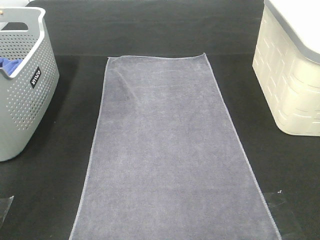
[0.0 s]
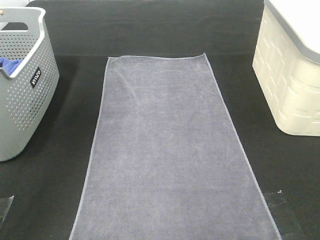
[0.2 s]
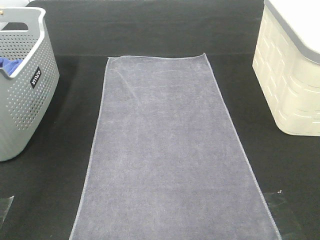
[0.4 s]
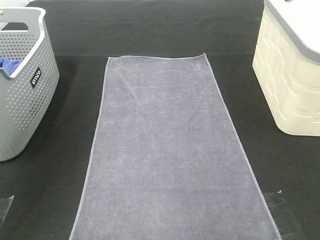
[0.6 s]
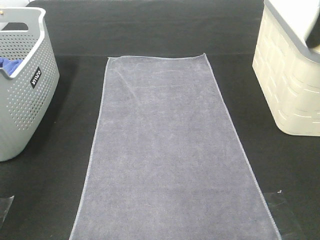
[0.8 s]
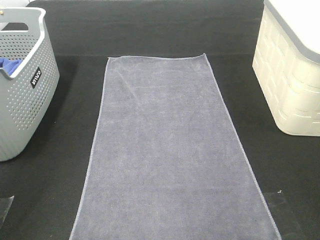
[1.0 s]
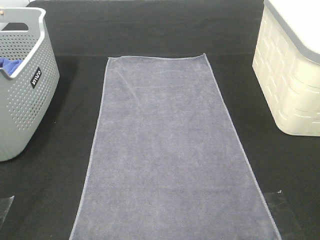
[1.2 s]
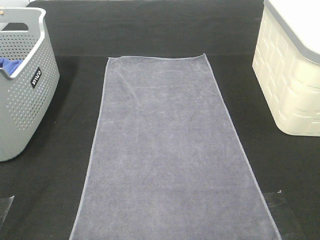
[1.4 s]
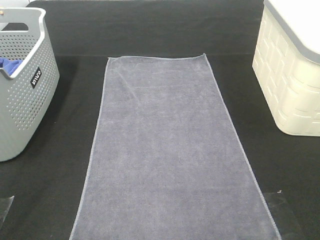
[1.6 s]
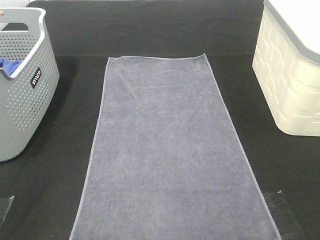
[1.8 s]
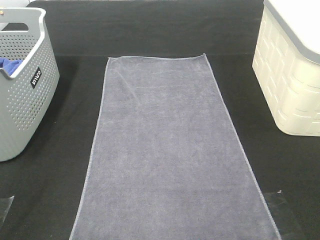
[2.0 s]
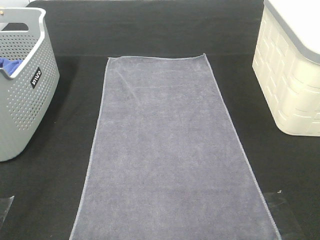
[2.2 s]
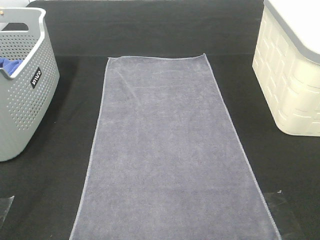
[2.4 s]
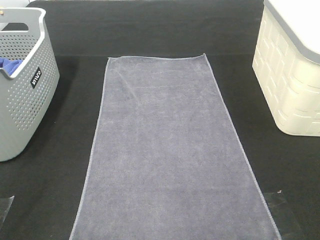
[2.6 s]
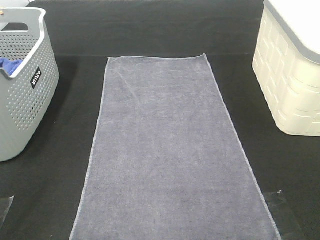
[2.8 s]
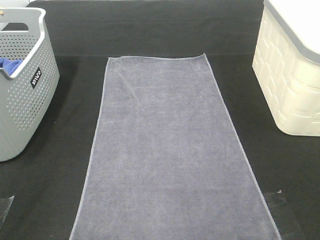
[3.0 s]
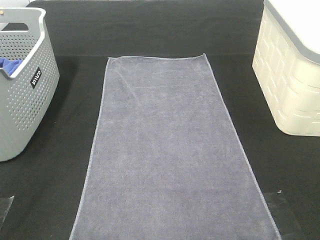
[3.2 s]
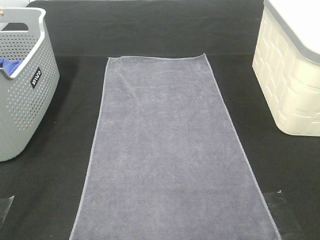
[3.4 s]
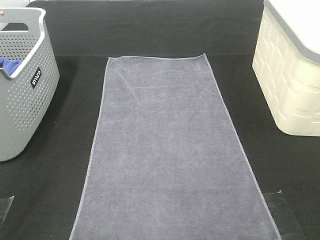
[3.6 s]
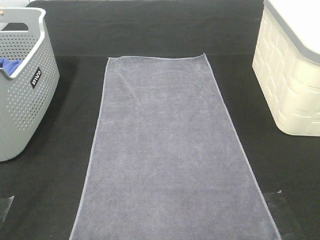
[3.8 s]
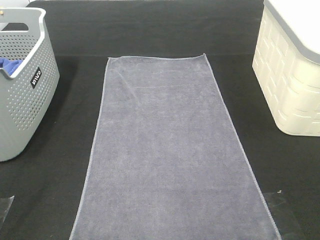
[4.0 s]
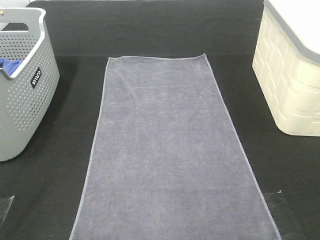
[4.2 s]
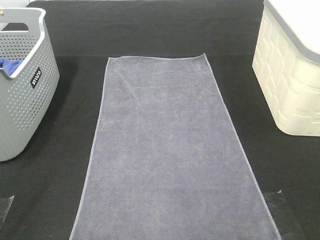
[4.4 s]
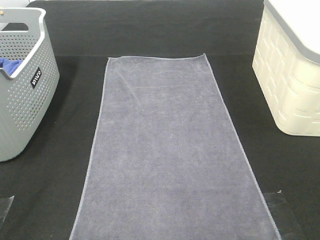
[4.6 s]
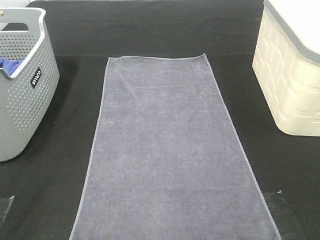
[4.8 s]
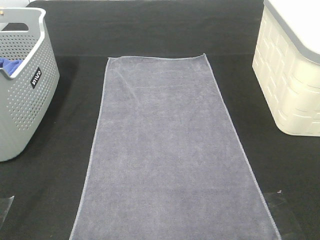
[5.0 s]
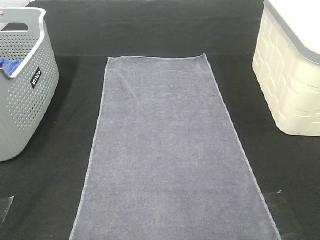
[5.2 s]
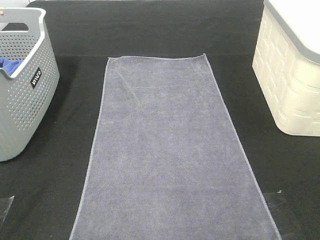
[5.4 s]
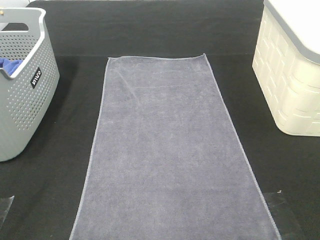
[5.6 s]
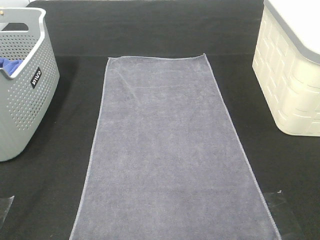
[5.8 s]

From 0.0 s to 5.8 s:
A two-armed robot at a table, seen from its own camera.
Task of the whole recording: Remove the towel and place it.
From 0.0 s to 1.4 s: Both grippers travel together backward, some 35 cm.
From 4.4 s to 5.8 s: Neither gripper changes place.

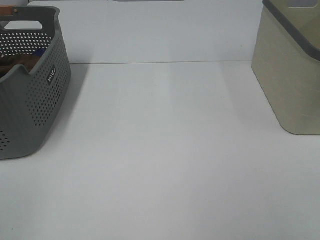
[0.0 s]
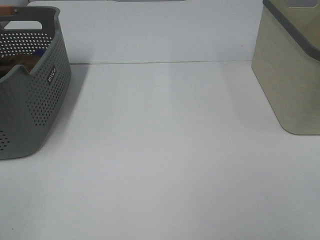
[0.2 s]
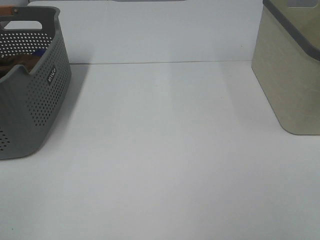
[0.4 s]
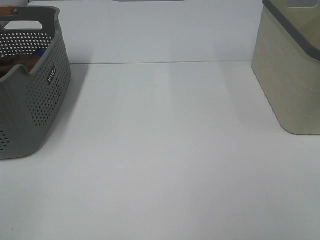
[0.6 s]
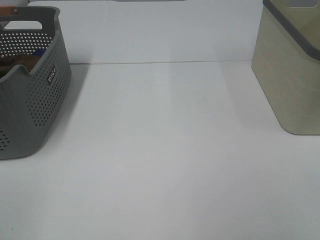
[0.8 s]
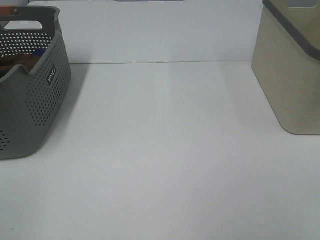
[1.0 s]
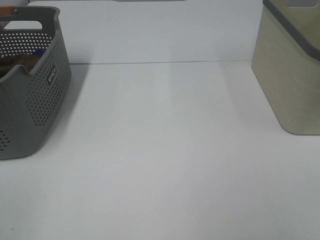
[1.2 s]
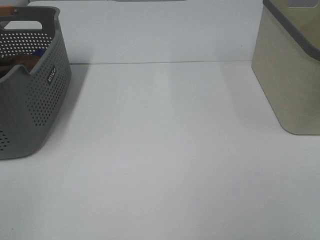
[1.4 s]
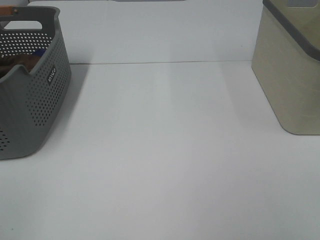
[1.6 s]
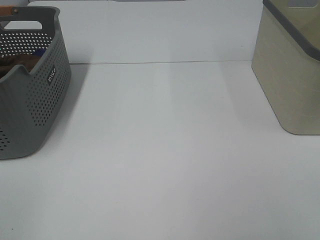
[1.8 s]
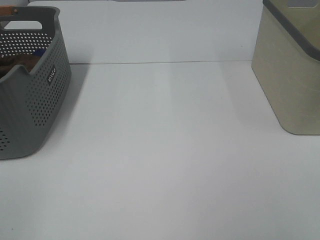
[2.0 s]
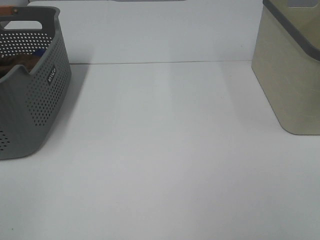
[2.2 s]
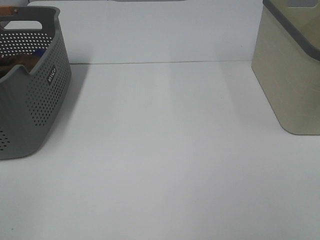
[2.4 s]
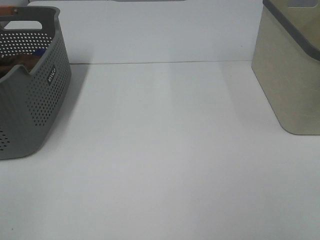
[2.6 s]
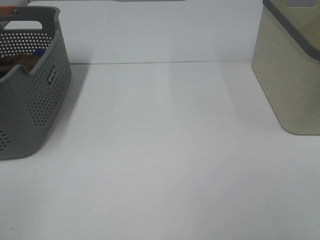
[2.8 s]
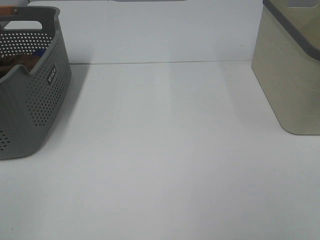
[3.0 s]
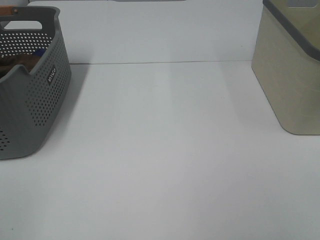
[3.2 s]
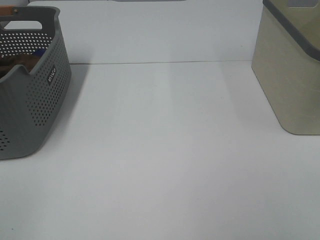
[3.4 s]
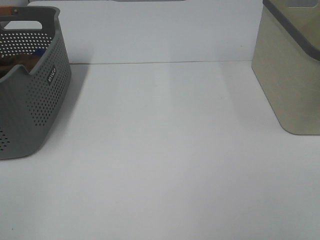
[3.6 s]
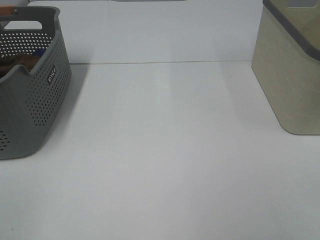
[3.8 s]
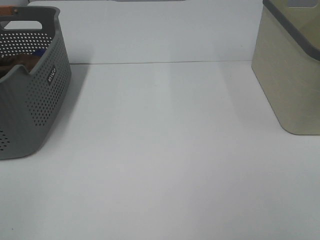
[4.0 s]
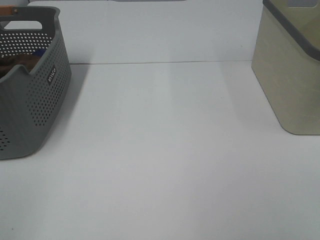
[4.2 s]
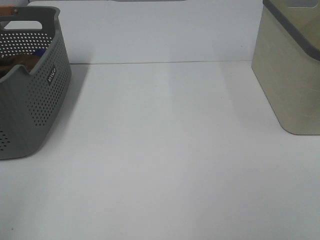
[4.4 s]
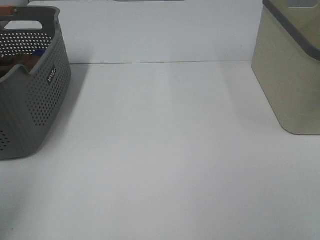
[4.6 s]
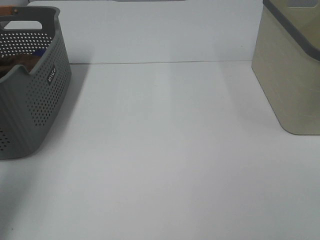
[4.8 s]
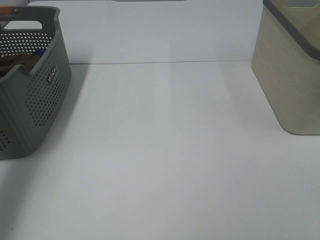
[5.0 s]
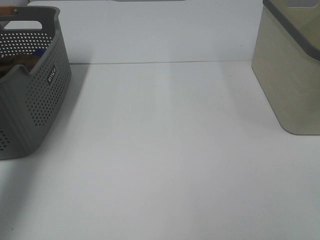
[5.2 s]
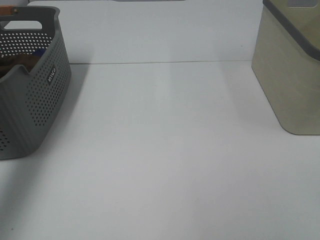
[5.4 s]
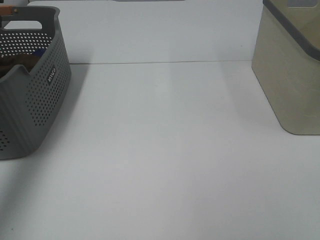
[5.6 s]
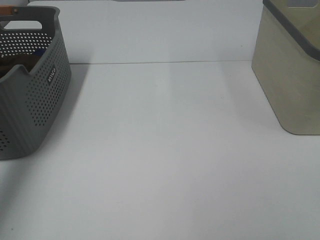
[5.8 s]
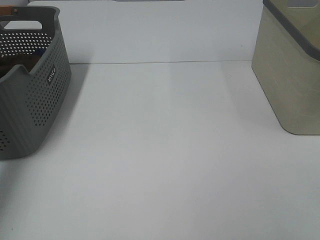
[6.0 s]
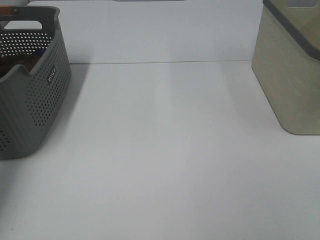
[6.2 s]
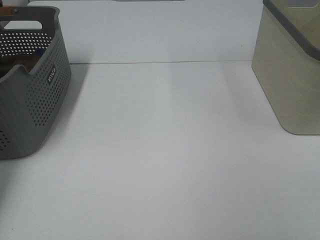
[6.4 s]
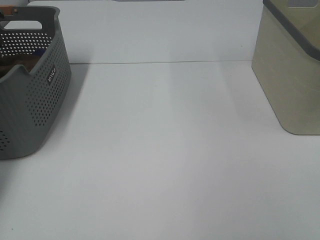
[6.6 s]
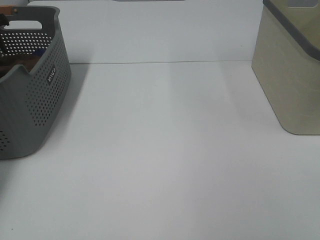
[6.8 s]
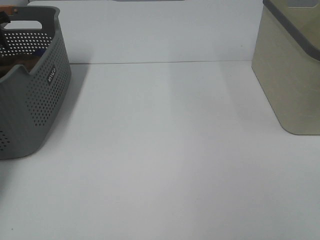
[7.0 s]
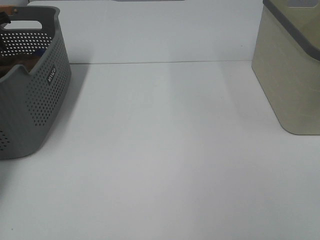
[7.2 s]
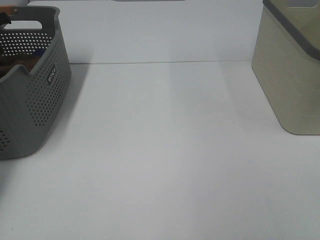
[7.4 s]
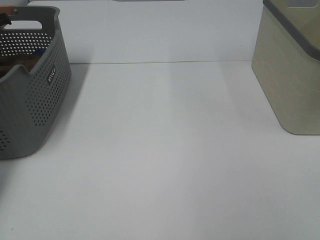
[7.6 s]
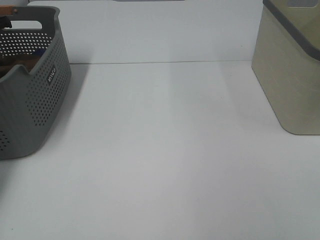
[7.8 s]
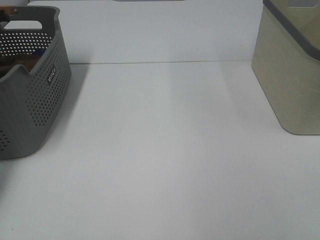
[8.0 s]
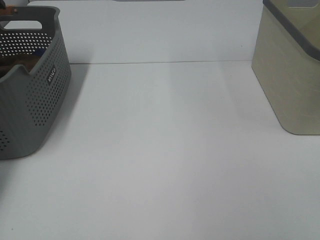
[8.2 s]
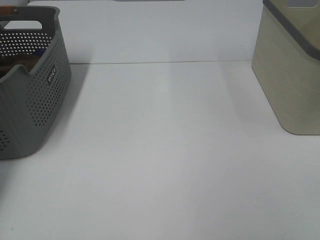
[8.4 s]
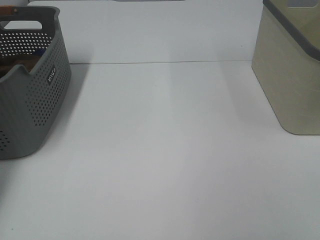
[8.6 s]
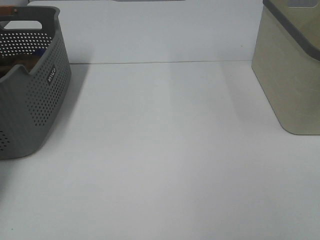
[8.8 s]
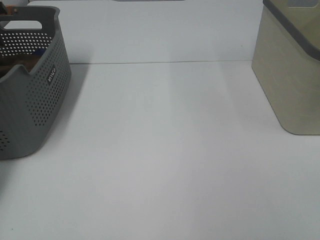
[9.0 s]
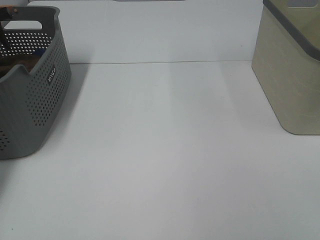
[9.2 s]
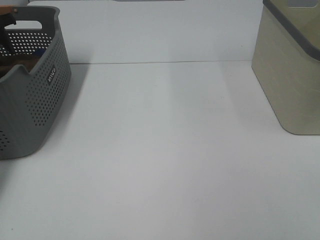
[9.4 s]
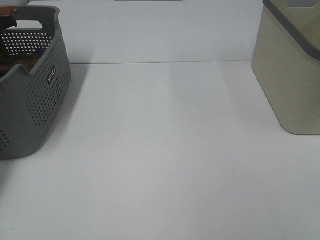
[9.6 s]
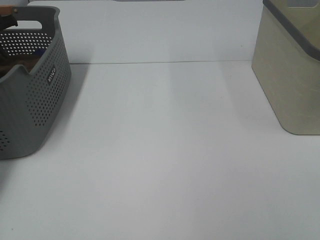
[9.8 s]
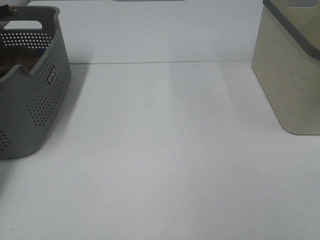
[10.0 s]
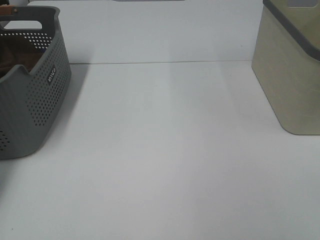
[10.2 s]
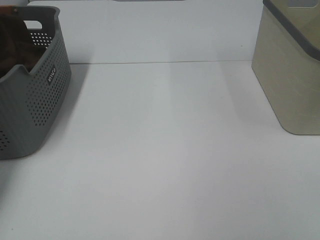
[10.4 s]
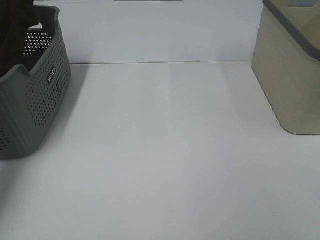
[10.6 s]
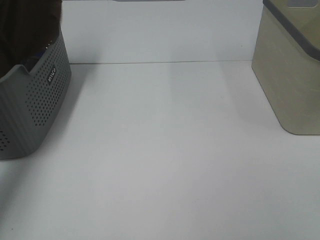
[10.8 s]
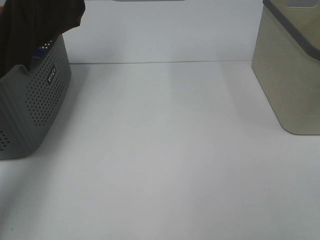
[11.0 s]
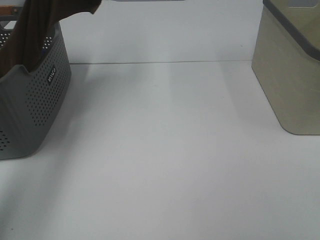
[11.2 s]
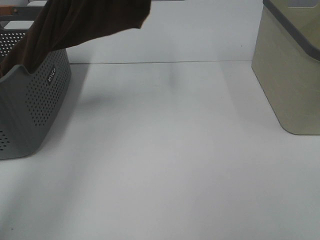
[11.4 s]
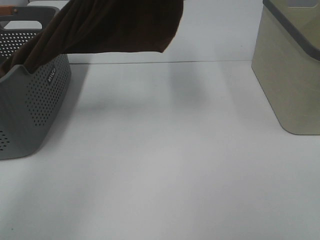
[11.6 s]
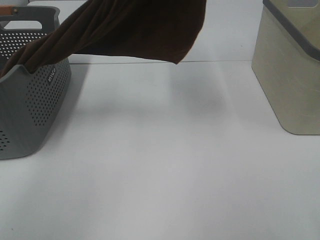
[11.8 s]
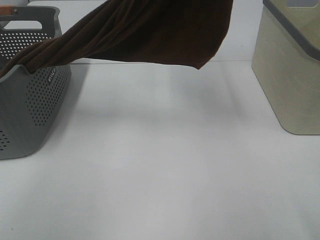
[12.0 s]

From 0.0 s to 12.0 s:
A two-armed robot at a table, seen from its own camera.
Task of the whole recording: Remove the towel and place it.
From 0.0 s to 3.0 s: Both grippers stay about where they are.
From 4.4 s to 6.0 s: The left gripper travels forward by approximately 40 cm.
From 6.0 s to 7.6 s: The left gripper goes approximately 10 cm downward and forward, and closes up.
From 9.0 s to 10.4 s: The left gripper is displaced upward by roughly 5 cm, and closes up.
From 10.4 s to 12.0 s: The left gripper is displaced to the right, backward and upward by about 40 cm. Meanwhile the right gripper goes about 10 cm forward.

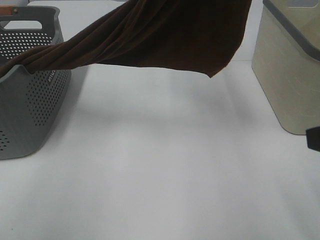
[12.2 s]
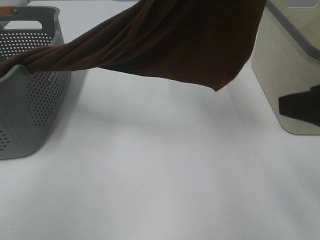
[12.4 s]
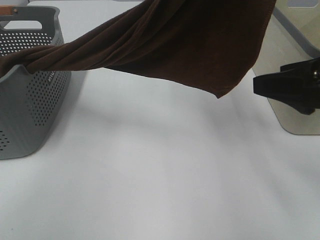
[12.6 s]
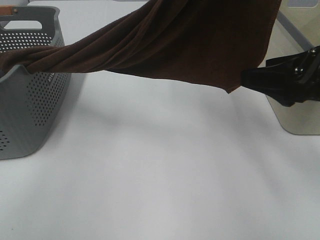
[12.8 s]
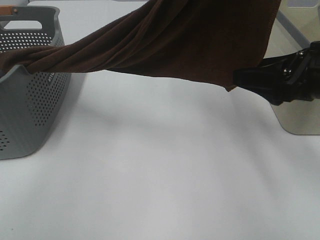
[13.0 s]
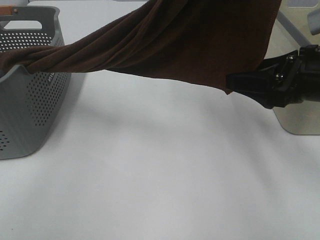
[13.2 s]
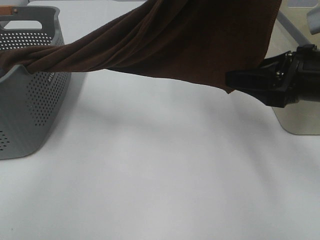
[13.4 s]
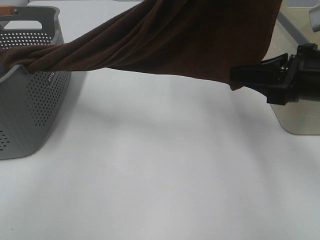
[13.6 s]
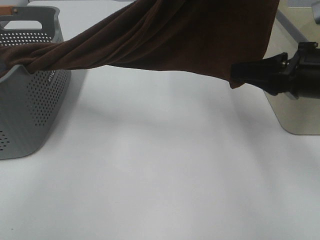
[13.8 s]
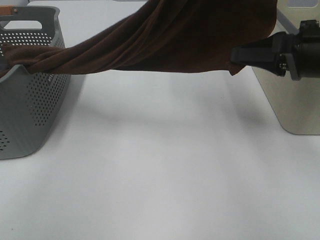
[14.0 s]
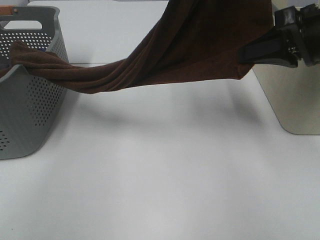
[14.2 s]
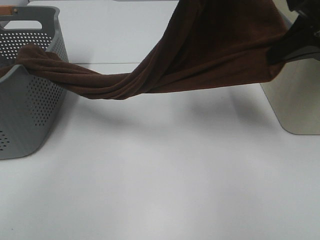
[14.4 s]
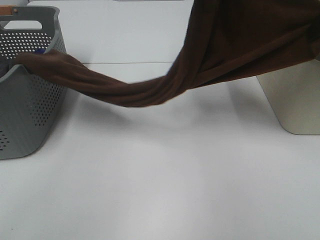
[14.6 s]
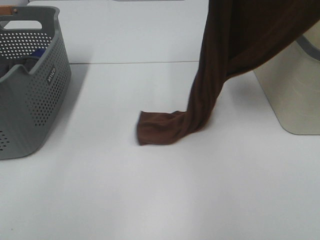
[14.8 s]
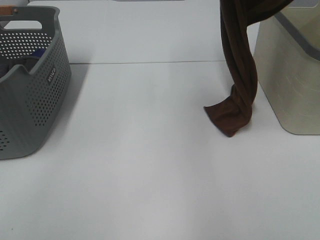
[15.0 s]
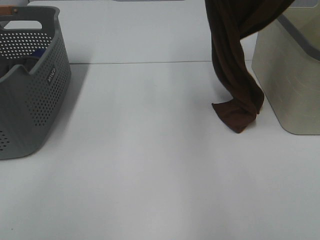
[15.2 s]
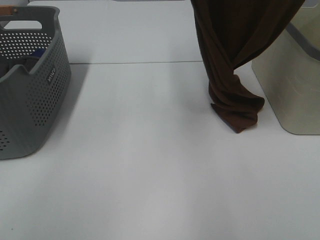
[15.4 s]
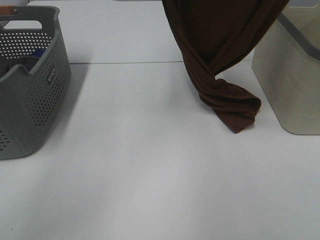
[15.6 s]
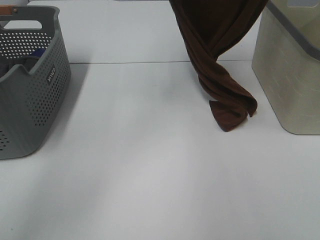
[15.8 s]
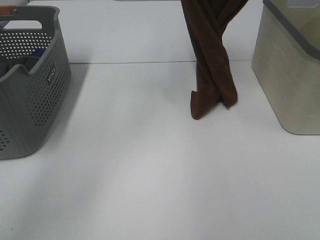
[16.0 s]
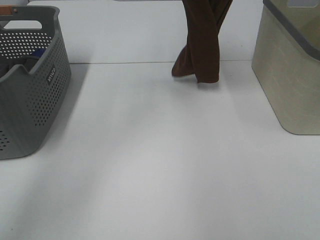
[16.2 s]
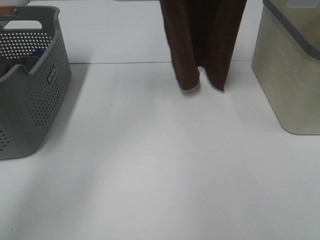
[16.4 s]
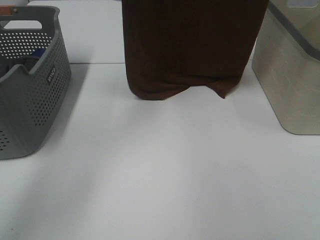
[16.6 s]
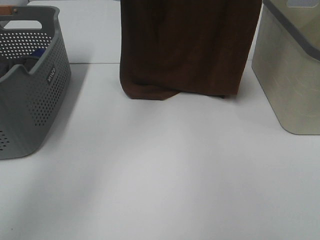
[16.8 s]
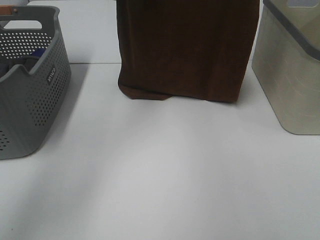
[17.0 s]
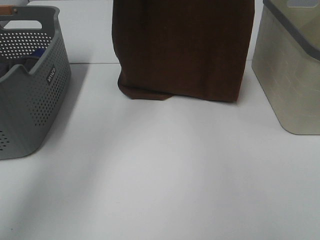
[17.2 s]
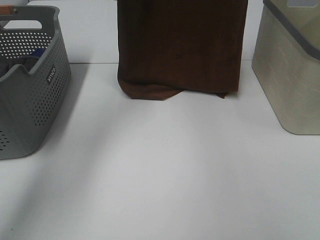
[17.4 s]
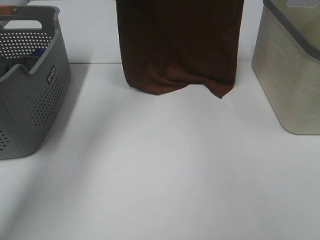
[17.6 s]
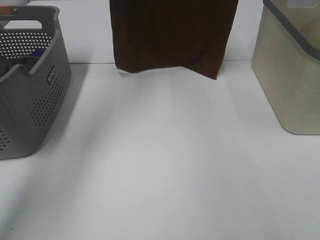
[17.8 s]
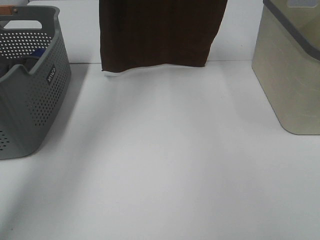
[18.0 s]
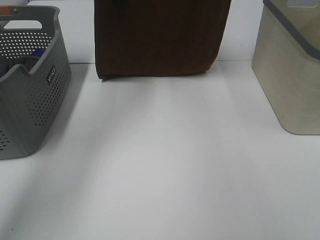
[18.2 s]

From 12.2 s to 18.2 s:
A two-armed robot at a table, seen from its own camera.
Task of the whole recording: Remove the towel and place it.
Step, from 12.8 s to 17.2 s: Left hand: spread the brown towel flat on the table.
Step, from 12.8 s to 17.2 s: Right hand: spread the brown towel flat on the table.
From 12.2 s to 13.8 s: The right gripper heads forward and downward, covering some 15 cm, and closes its fingers.
From 13.8 s to 15.2 s: The right gripper heads upward, covering some 25 cm. Meanwhile the left gripper heads forward, covering roughly 5 cm, and moves some 10 cm downward and comes back.
From 15.2 s to 16.6 s: The right gripper heads forward, covering about 10 cm, while the left gripper is displaced forward and to the left by about 15 cm.
From 16.6 s to 18.2 s: The right gripper heads forward, covering about 5 cm, while the left gripper goes downward and returns, some 5 cm each way.
